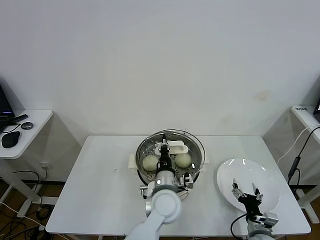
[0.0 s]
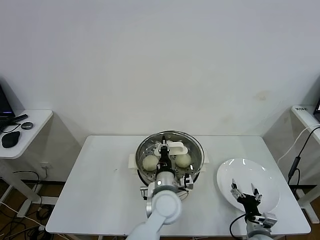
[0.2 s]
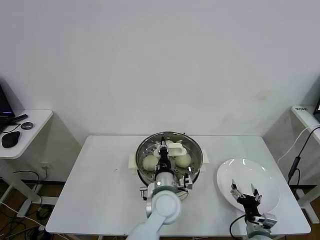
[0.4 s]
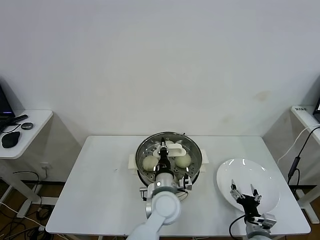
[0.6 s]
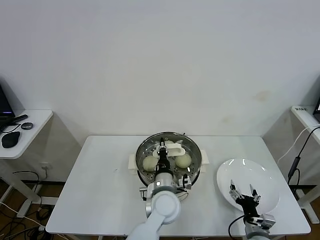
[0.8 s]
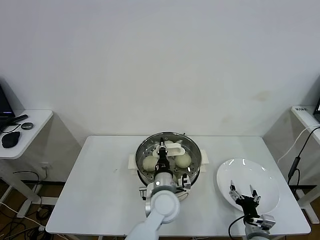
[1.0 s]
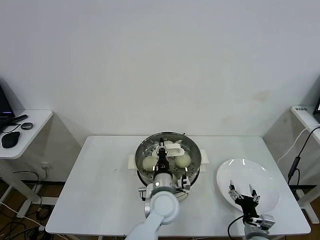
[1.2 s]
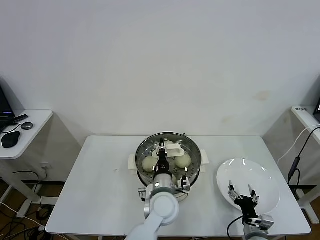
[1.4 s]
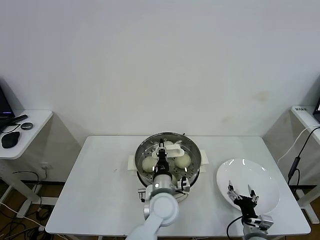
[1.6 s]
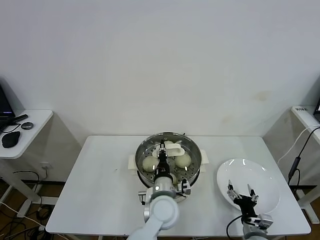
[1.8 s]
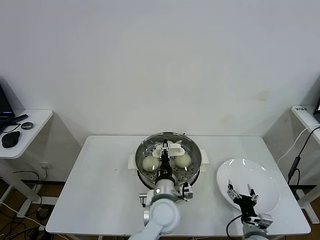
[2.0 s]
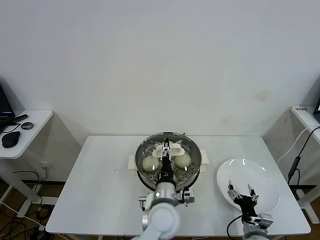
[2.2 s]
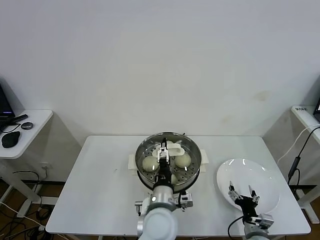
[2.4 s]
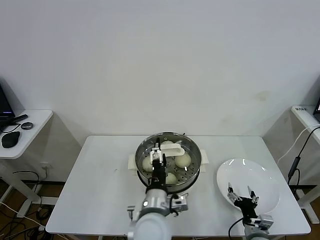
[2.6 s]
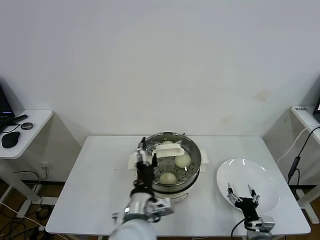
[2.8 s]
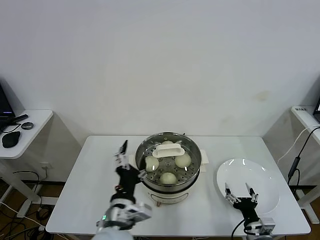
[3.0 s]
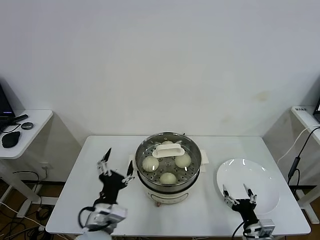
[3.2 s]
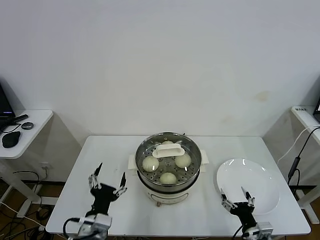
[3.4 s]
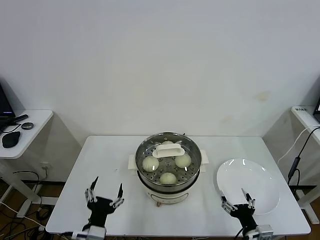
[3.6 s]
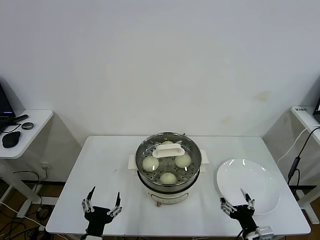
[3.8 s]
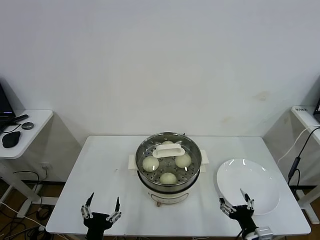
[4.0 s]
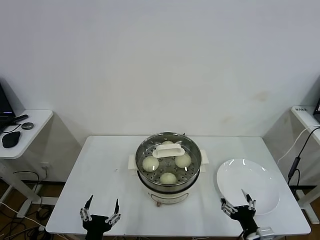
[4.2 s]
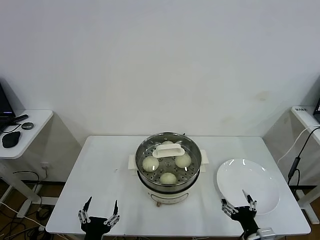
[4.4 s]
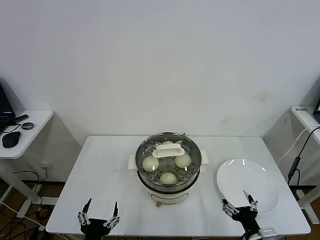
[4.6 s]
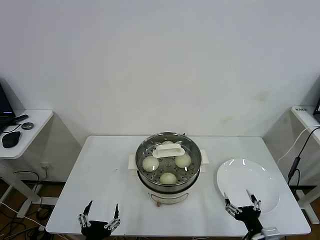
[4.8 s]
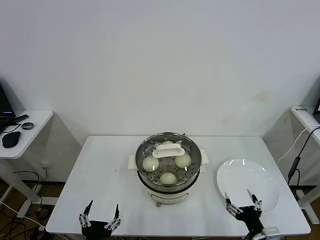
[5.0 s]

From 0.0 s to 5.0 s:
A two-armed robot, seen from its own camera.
Task of the whole recording: take steamed baozi put them in steamer.
Step, from 0.0 s to 2.4 s: Place the pot lid on the steamer with left gripper.
From 0.0 s to 1.6 s: The grippers move only a little.
From 1.6 s to 3.4 s: The left gripper is displaced to the left and backward by approximately 25 cm, and opens, while the right gripper ends up roughly 5 cm from where it was.
From 3.4 s to 5.0 s: The left gripper is displaced backward by some 10 cm, while the right gripper ends up about 5 cm from where it was.
